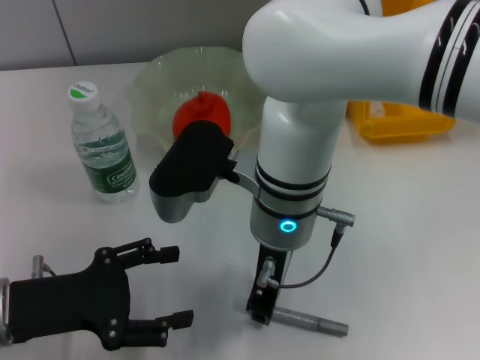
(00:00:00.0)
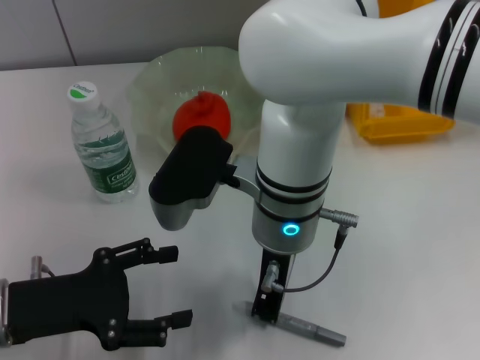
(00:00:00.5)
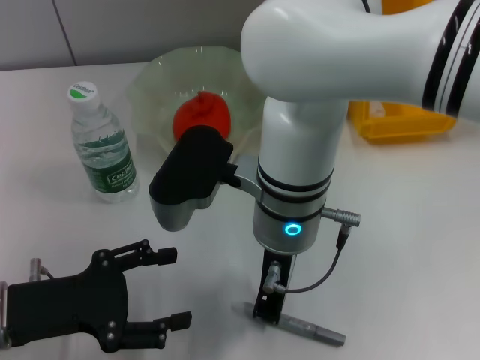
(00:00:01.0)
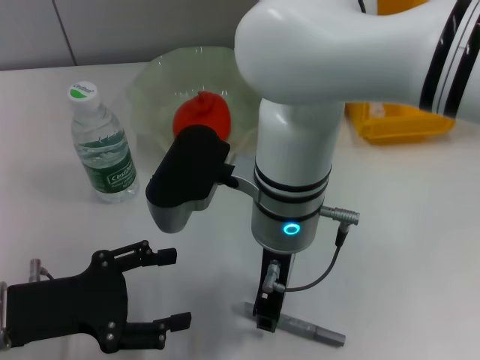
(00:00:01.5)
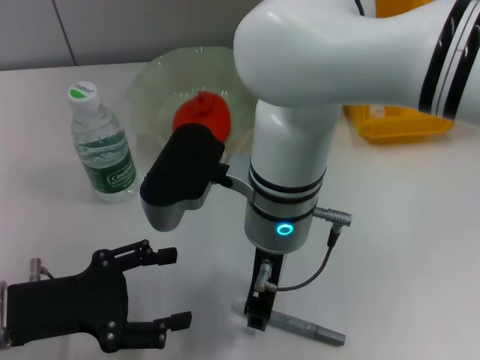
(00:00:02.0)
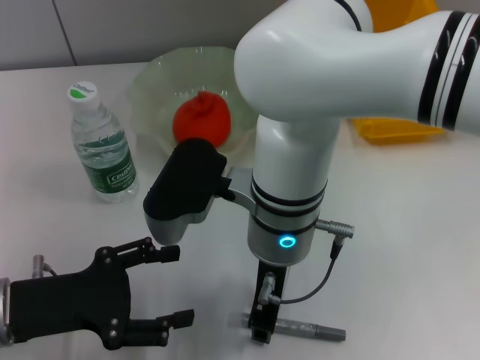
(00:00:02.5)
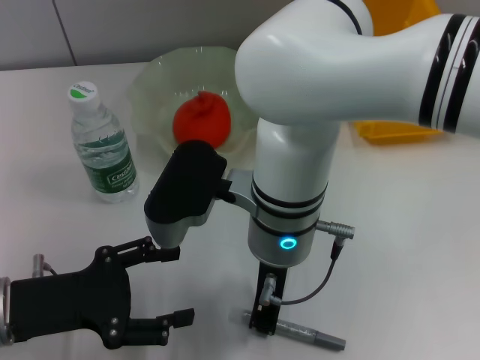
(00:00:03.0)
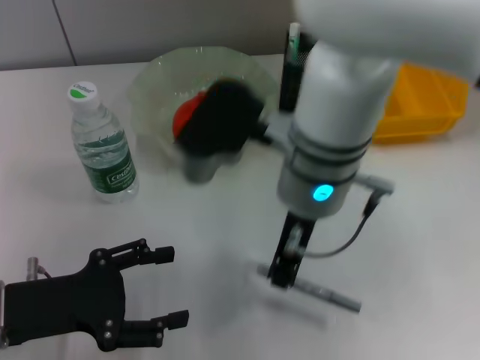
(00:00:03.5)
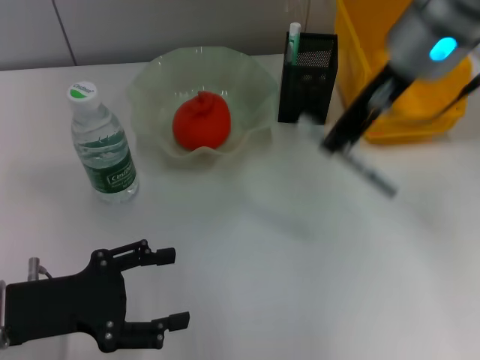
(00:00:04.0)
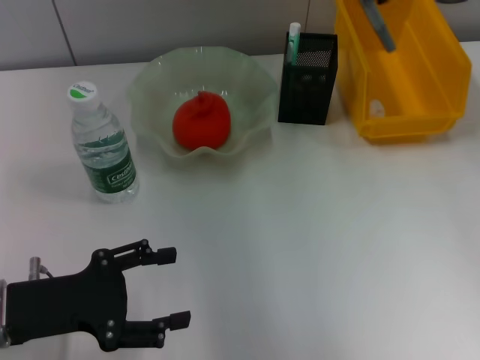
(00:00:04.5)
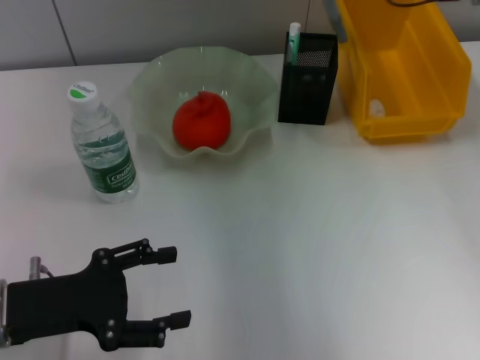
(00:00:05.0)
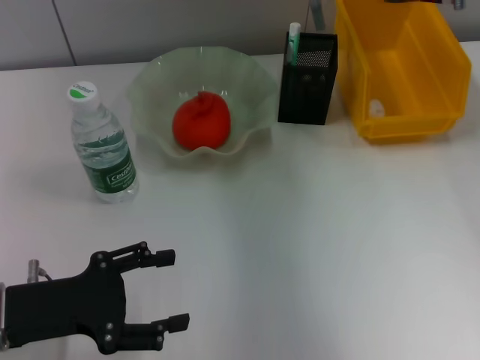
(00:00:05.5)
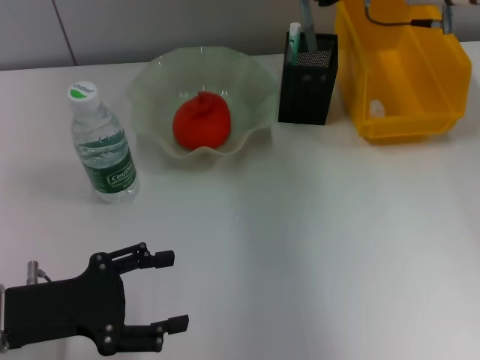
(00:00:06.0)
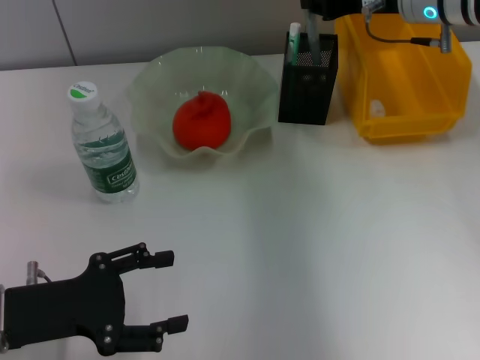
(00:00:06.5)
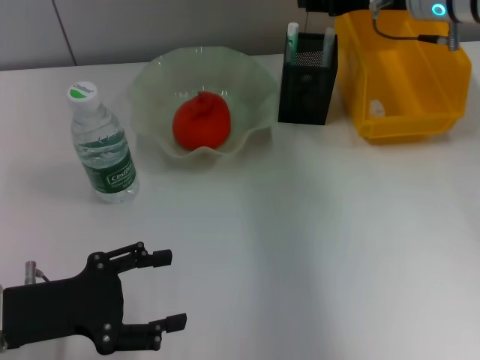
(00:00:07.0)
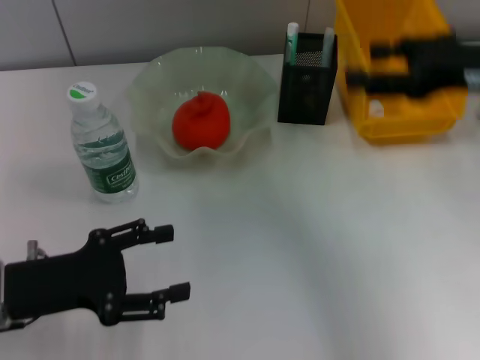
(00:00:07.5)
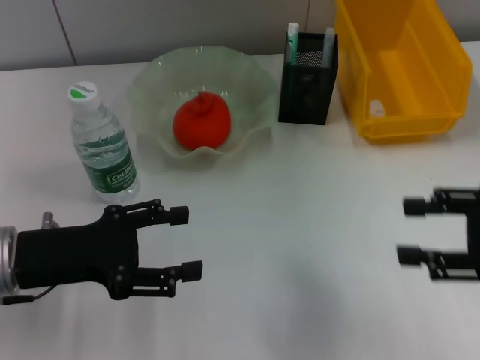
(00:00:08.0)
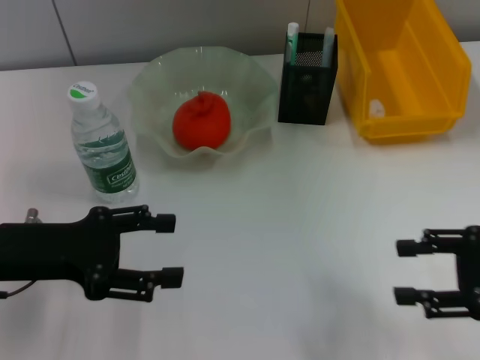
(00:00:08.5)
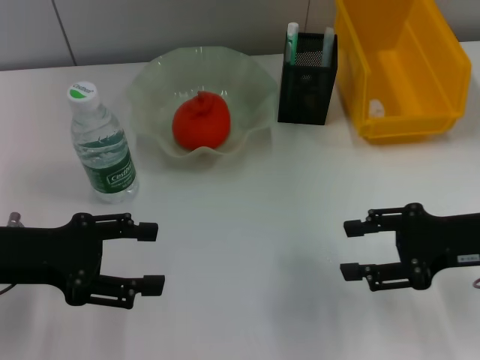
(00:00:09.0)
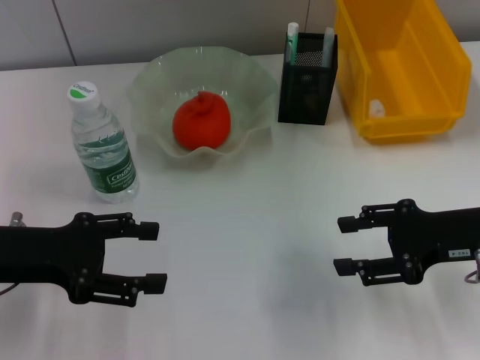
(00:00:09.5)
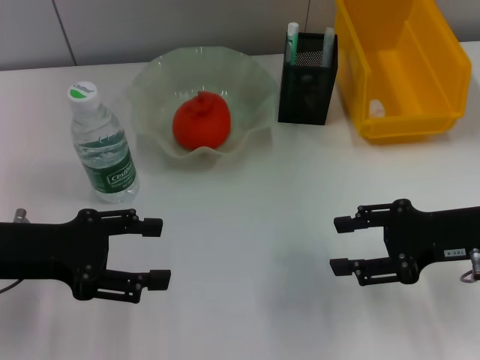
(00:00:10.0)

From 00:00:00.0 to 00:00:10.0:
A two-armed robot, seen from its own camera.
Step, from 00:00:00.0 to 00:00:03.0: Grab the gray glue with the right hand.
Step, from 00:00:03.5 to 00:00:07.0: Place the gray glue into the pen holder with the right hand.
From 00:00:00.0 to 00:00:02.0: The right gripper closes, then reopens.
From 00:00:02.0 to 00:00:04.0: The right gripper heads to the right, upward and forward, covering roughly 20 cm, and closes.
From 00:00:04.0 to 00:00:06.0: The right gripper is displaced forward, to the right and downward by some 15 cm.
From 00:00:06.0 to 00:00:08.0: The right gripper travels backward by approximately 25 cm, and opens its fingers.
From 00:00:08.0 to 00:00:10.0: The right gripper travels downward and forward by roughly 10 cm.
